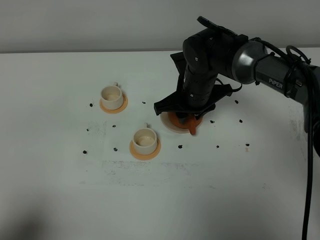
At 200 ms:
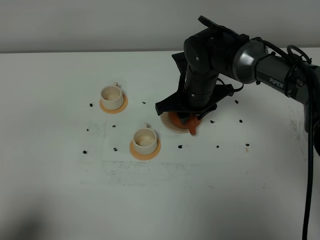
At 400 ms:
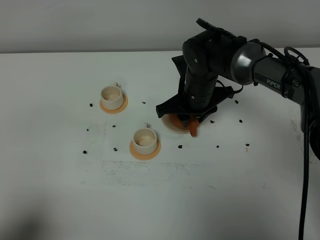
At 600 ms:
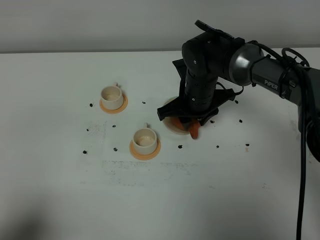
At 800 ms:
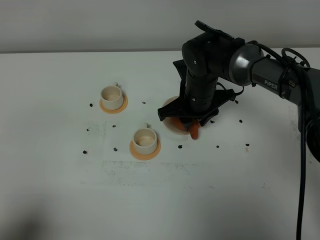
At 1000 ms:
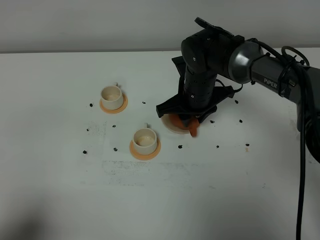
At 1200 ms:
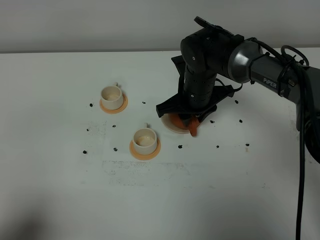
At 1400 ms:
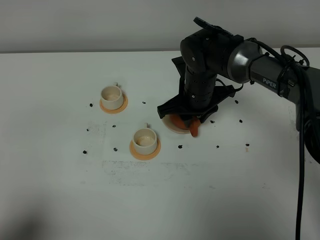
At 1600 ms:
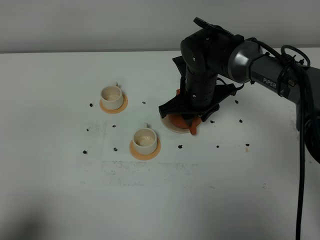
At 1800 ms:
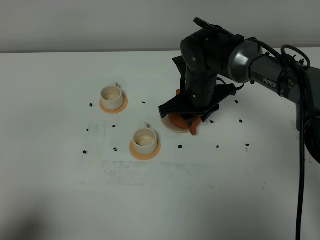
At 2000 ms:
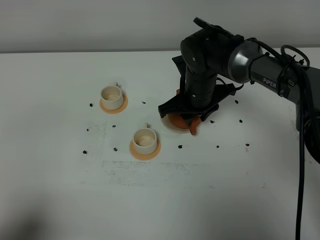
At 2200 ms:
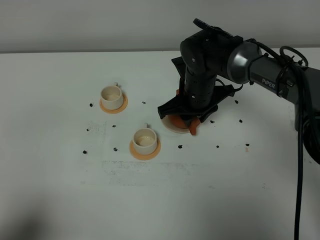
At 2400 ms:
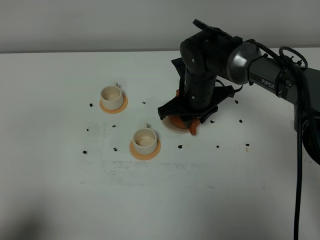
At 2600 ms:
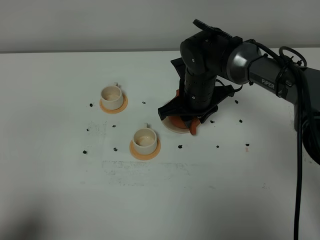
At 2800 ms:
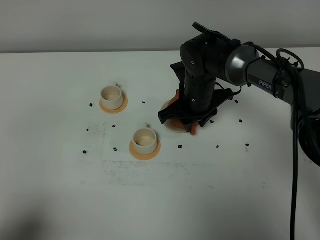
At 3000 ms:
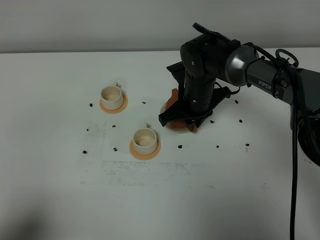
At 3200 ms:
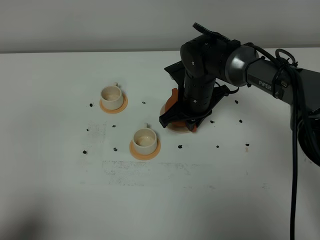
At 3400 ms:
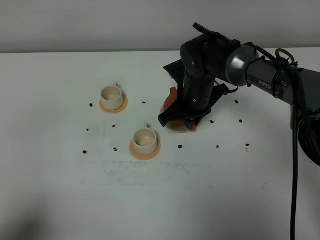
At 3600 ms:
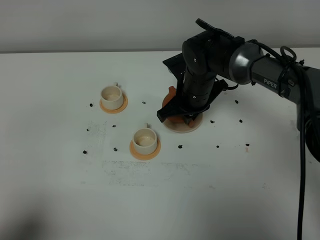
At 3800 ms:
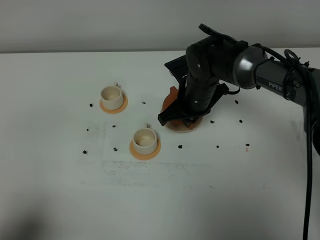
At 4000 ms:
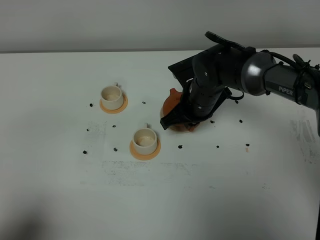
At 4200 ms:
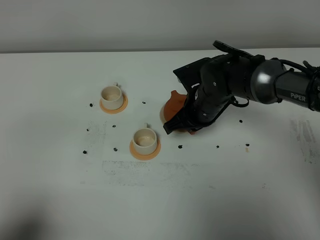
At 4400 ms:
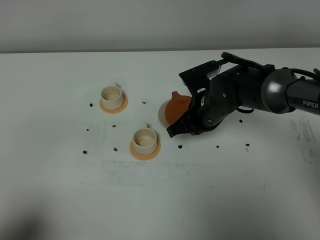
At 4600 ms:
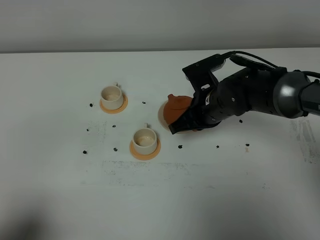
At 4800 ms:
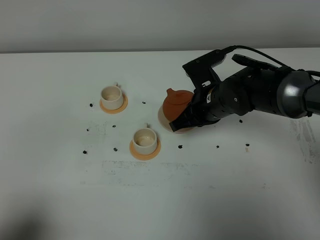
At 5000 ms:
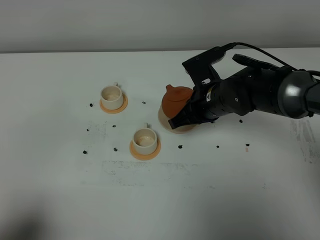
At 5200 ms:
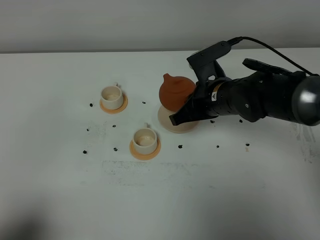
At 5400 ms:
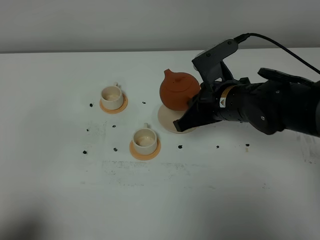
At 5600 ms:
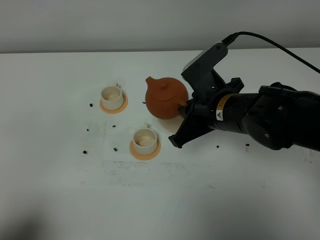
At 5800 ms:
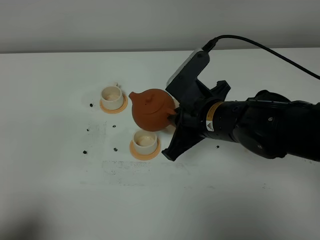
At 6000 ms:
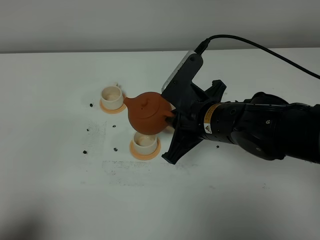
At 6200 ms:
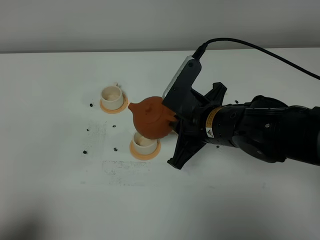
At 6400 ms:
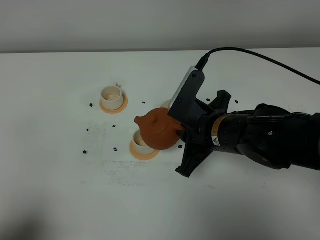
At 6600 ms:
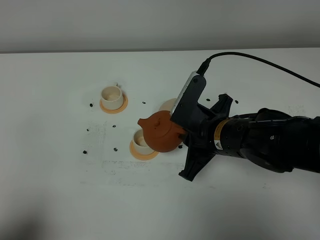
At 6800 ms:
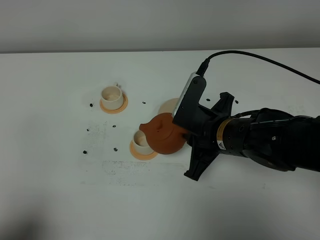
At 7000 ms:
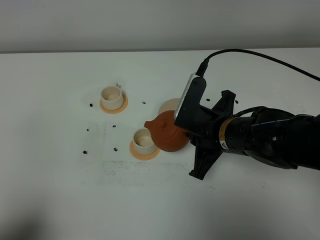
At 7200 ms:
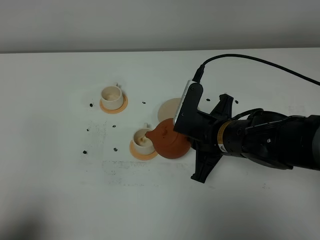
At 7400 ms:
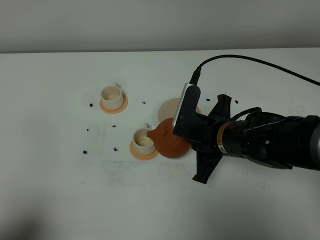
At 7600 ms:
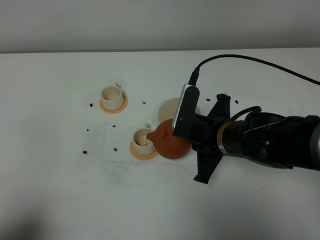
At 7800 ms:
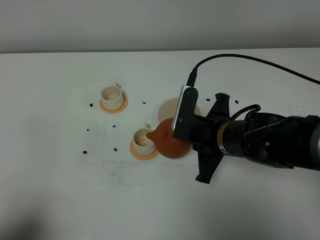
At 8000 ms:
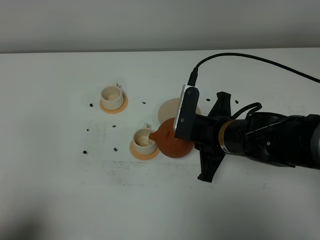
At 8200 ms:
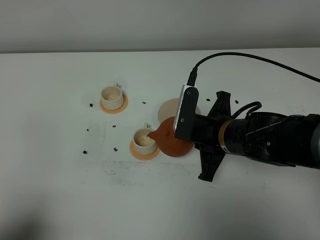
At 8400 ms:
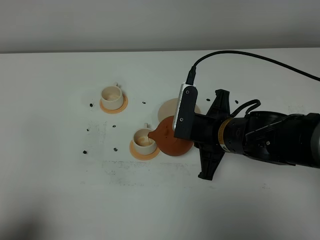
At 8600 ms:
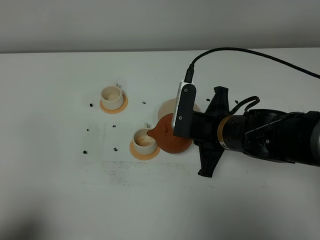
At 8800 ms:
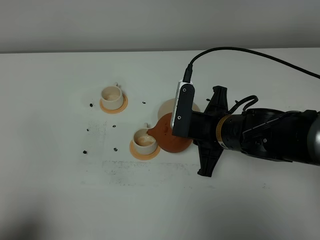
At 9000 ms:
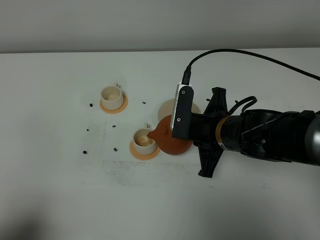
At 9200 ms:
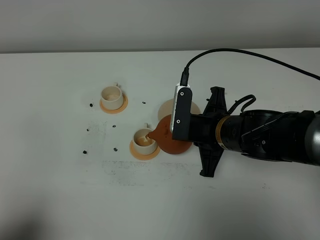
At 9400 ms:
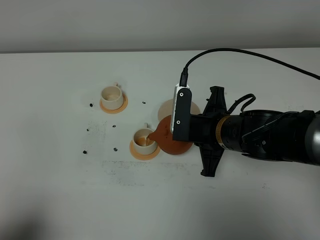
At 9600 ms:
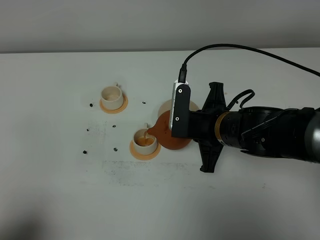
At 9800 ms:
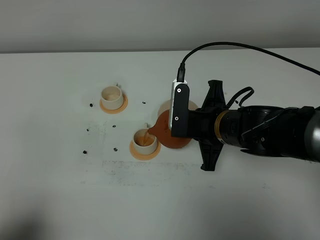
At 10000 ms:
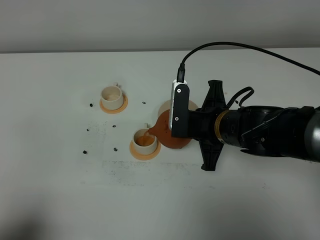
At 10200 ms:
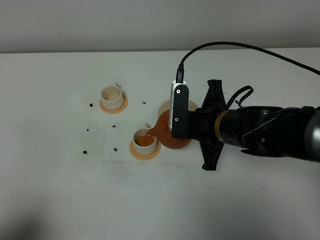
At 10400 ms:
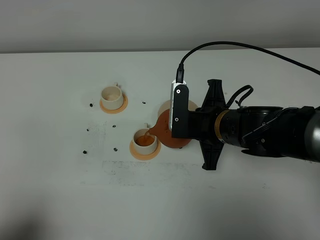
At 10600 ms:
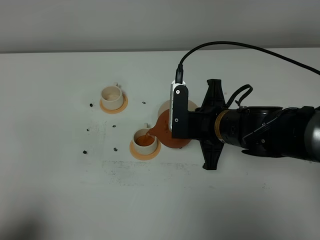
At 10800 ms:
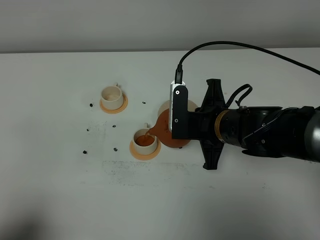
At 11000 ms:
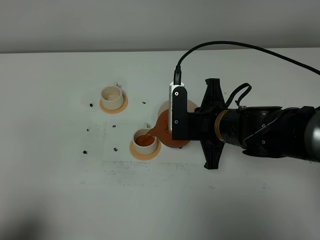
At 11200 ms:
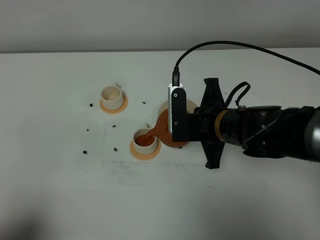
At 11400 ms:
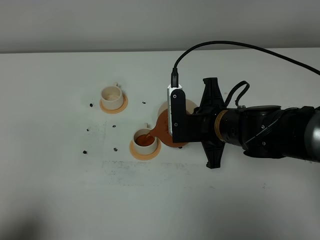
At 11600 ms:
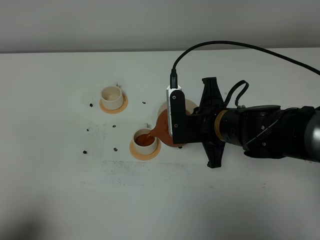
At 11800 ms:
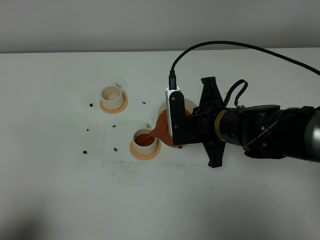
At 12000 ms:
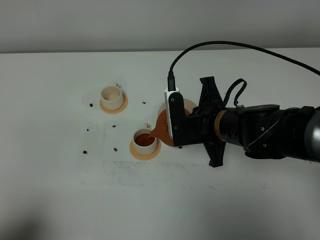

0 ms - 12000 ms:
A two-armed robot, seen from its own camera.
Task of the whole recording: grasp the brown teapot and pour the tea into the two white teacups one by one, put the brown teapot back in its original place.
Step, 0 ms - 4600 ms: Pick up the teapot with the right gripper.
0 ms - 1600 ms: The grippers move only a little.
1600 ms - 3000 ms: The right gripper closes up.
3000 ms - 4400 ms: The right gripper moves approximately 5 cm.
4400 ms - 6000 ms: The right gripper moves backward and upward, some 10 cm.
6000 ms - 7600 ms: The right gripper moves approximately 5 cm.
7600 ms - 10400 ms: There are only small adjustments of the grippers.
10400 ms - 12000 ms: The grippers move only a little.

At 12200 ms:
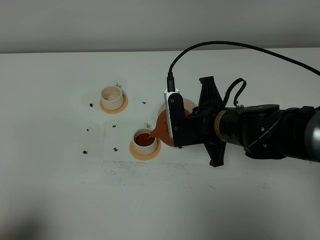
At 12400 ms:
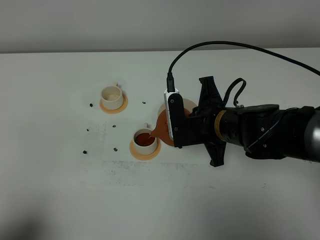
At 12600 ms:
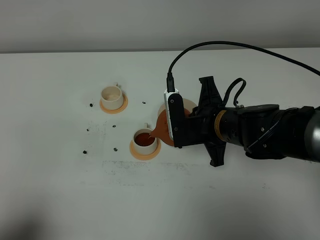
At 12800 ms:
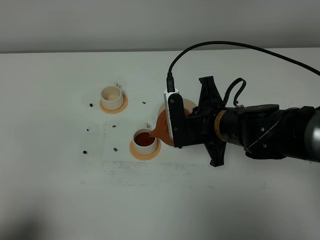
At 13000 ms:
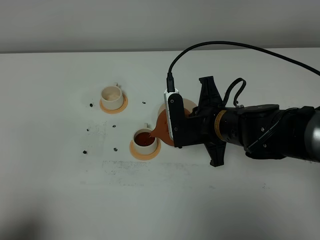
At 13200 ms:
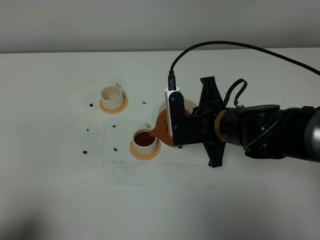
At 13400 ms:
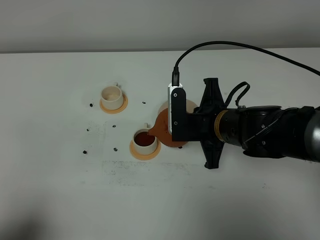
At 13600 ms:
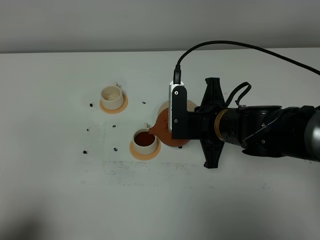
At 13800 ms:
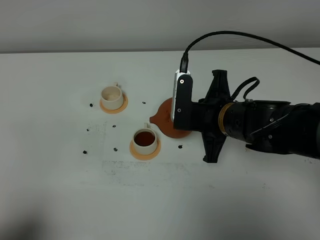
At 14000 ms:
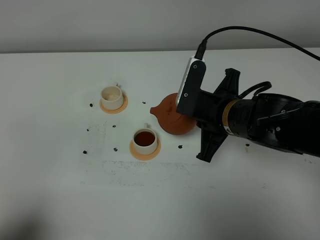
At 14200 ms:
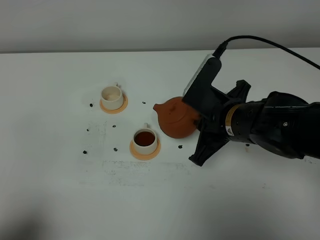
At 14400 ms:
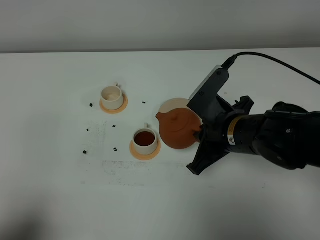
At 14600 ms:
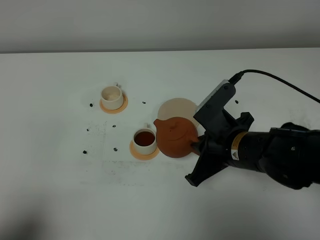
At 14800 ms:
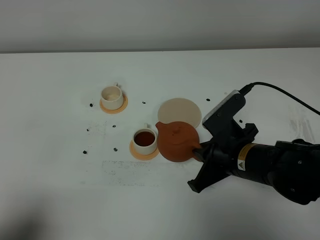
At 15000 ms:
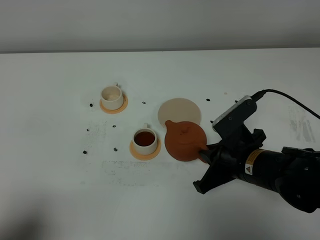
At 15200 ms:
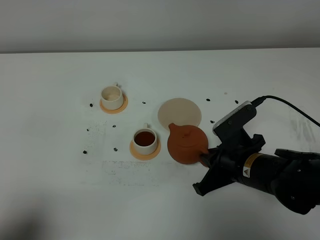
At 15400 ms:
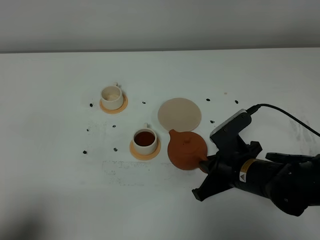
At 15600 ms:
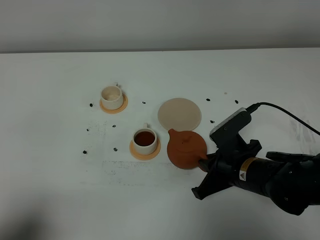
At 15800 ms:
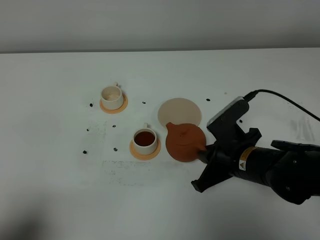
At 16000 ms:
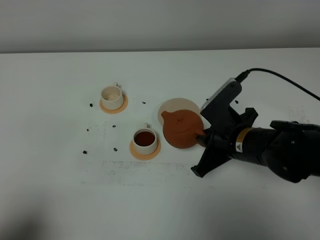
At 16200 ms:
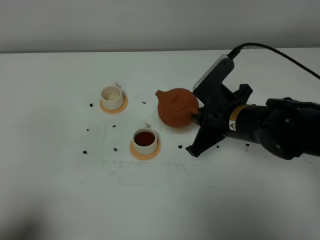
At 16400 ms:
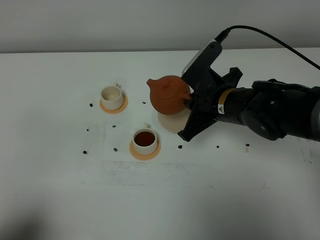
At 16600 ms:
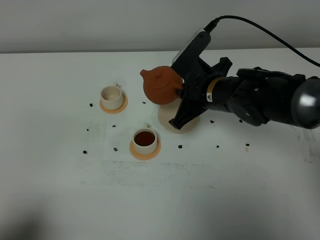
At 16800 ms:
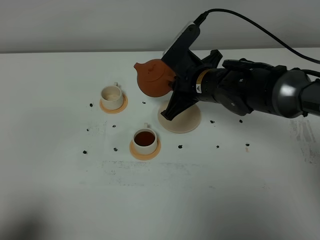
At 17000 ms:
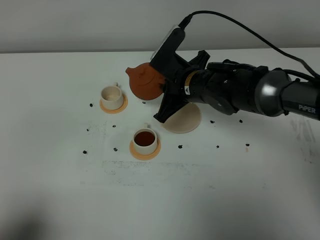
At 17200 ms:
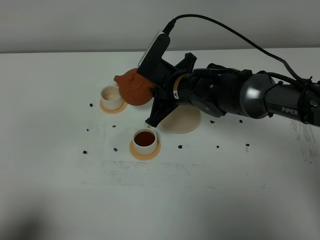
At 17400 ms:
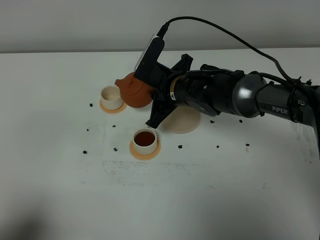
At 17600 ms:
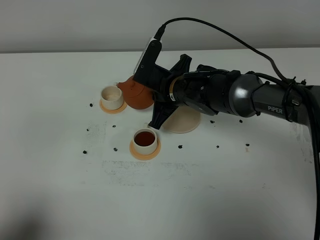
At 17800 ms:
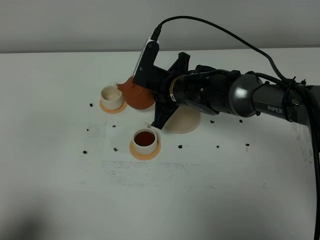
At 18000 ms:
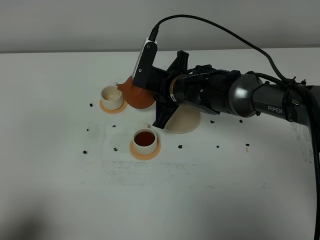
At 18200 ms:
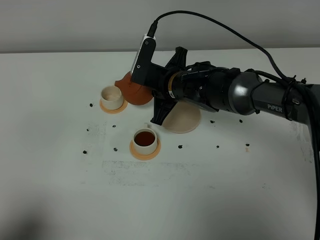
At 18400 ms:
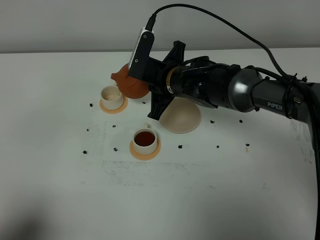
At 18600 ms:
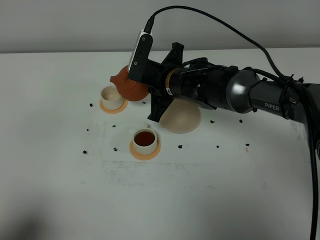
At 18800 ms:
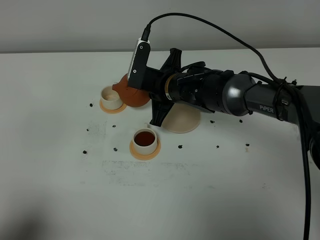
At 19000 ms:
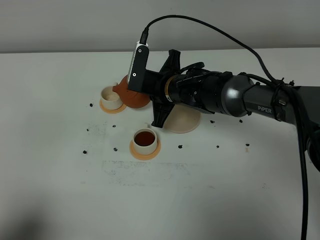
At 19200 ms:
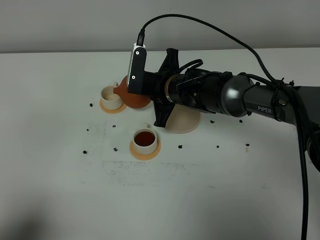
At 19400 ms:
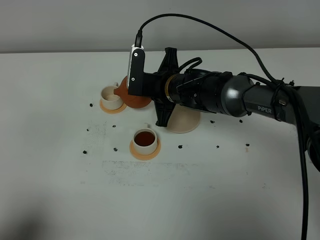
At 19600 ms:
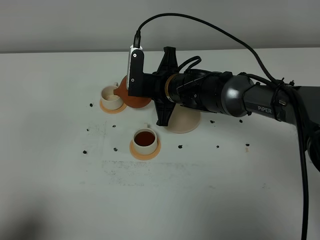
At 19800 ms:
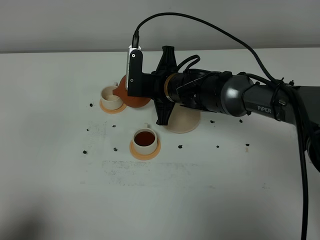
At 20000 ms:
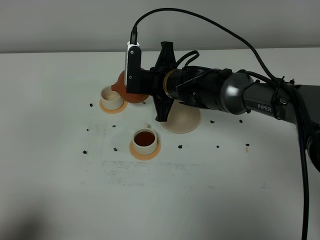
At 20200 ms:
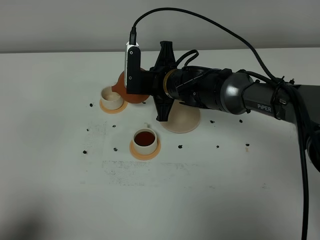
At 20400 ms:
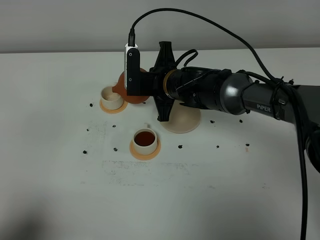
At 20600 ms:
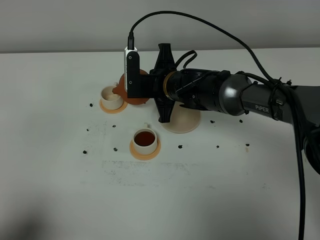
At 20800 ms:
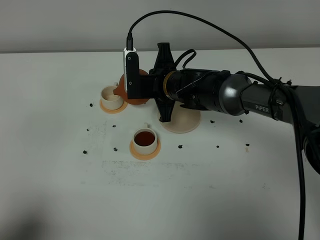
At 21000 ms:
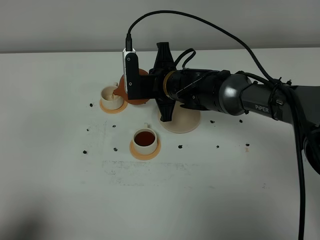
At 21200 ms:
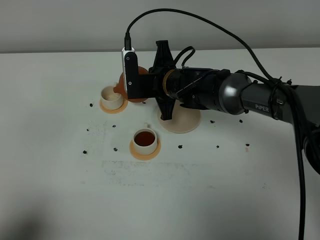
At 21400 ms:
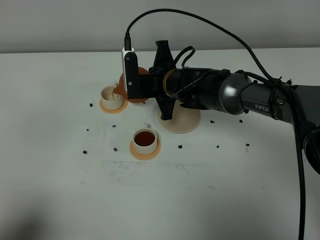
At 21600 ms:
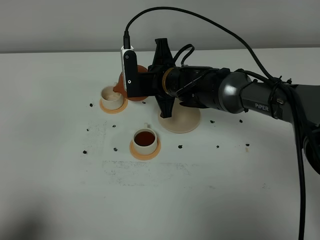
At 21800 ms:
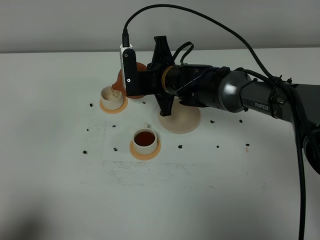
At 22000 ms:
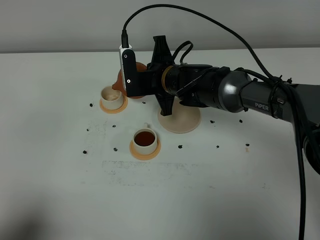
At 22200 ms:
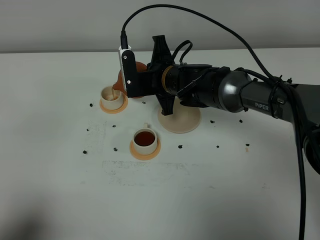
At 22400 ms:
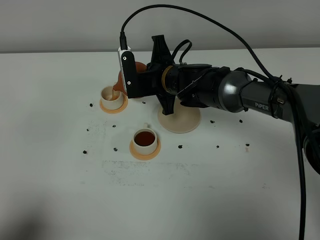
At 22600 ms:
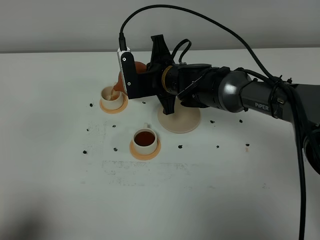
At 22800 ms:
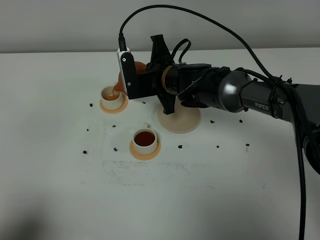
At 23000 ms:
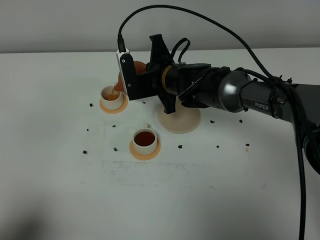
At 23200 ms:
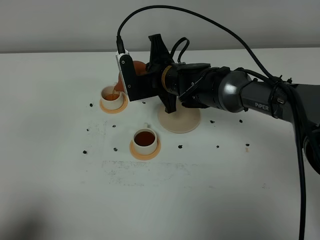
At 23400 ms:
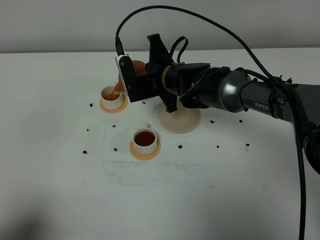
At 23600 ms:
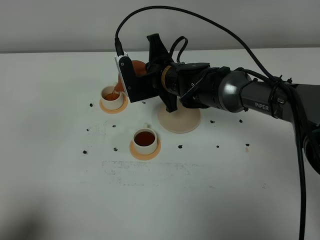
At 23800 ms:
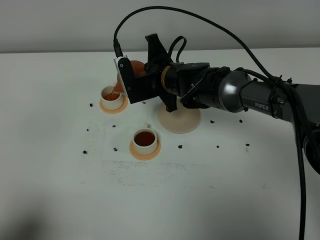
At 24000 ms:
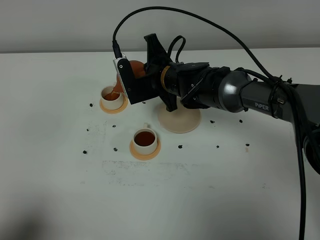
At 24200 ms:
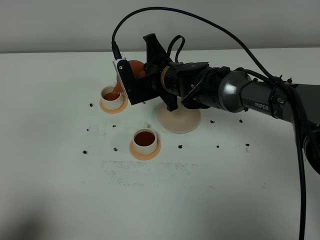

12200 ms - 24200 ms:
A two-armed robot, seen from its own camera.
Task of the whole recording: grasp the brown teapot and pour the tea into the two white teacups one by one, put the brown teapot back in its original place.
12200 ms - 13800 ms: There are only small adjustments of the grippers.
13800 ms - 15200 ms: The right gripper is displaced downward and backward by approximately 10 cm.
15200 ms - 16600 ms: The right gripper shifts approximately 15 cm forward and upward.
16600 ms - 18200 ms: The right gripper shifts roughly 5 cm to the left.
18200 ms - 19800 ms: There are only small adjustments of the grippers.
19800 ms - 22600 ms: The grippers make only small movements.
22600 ms - 24200 ms: There are only small adjustments of the grippers.
